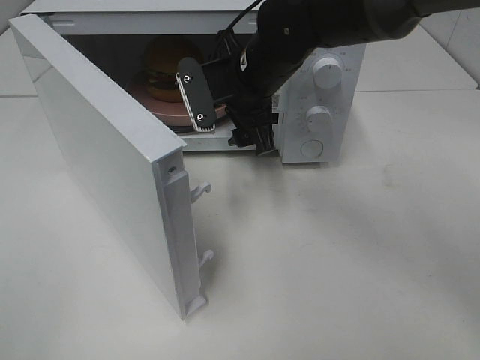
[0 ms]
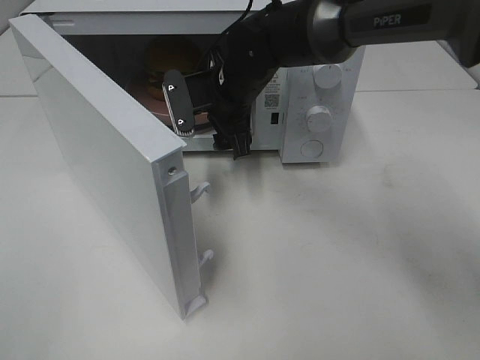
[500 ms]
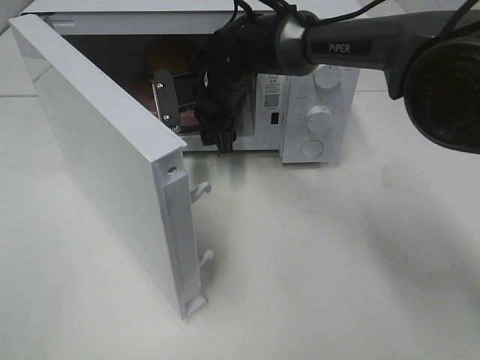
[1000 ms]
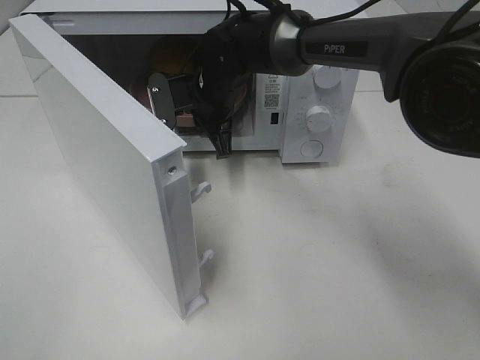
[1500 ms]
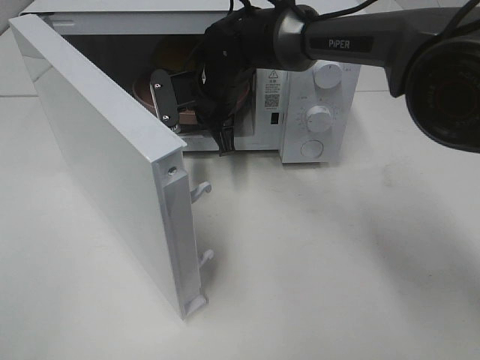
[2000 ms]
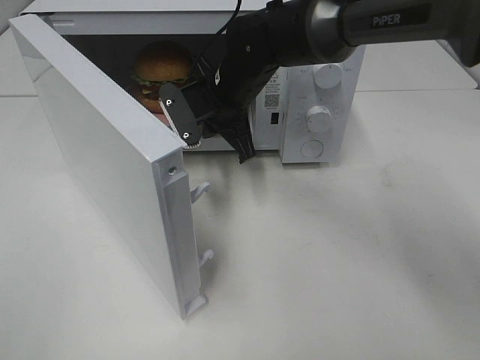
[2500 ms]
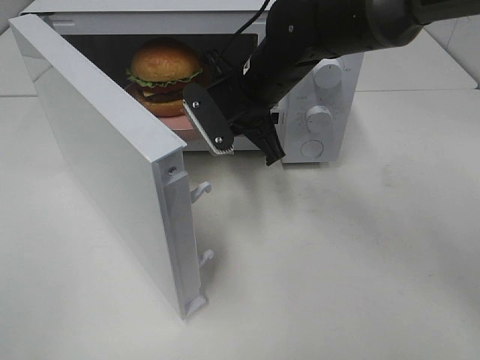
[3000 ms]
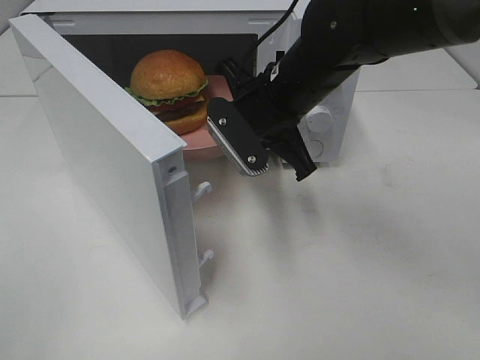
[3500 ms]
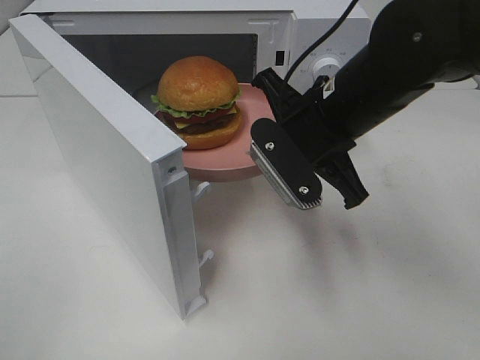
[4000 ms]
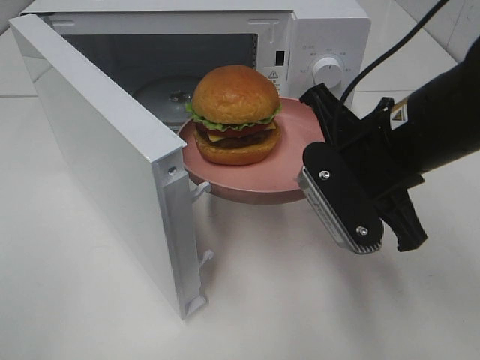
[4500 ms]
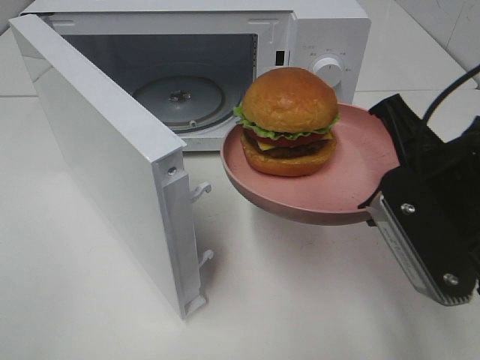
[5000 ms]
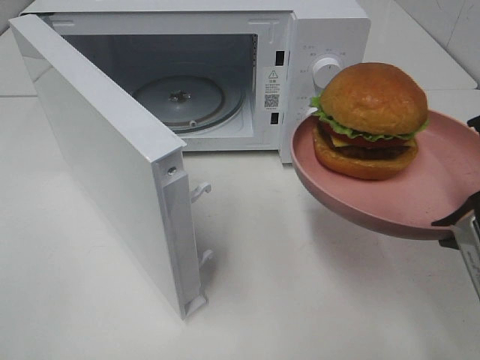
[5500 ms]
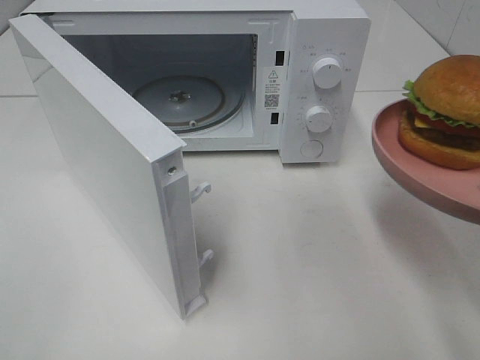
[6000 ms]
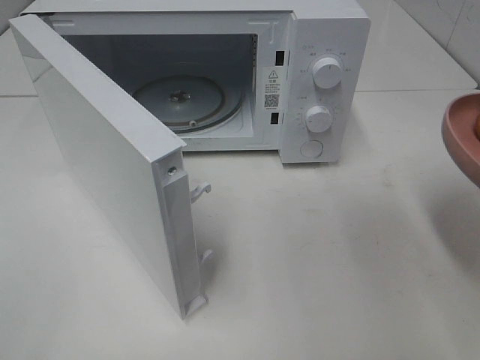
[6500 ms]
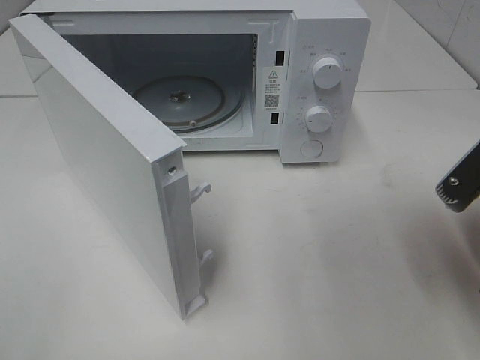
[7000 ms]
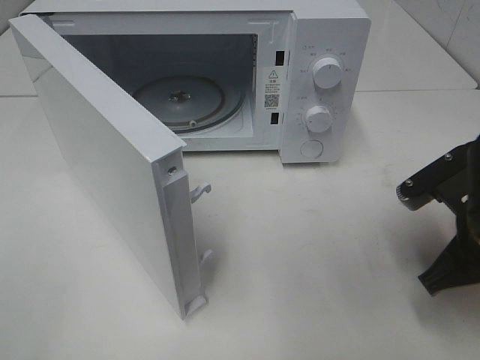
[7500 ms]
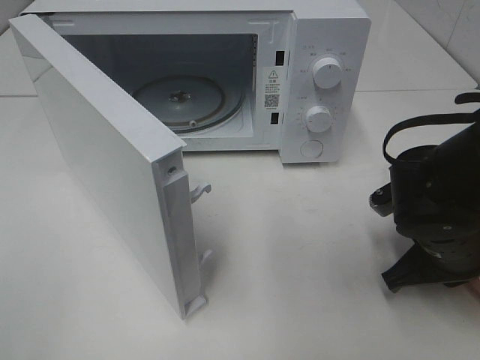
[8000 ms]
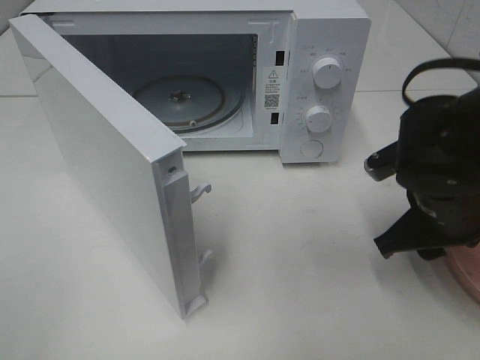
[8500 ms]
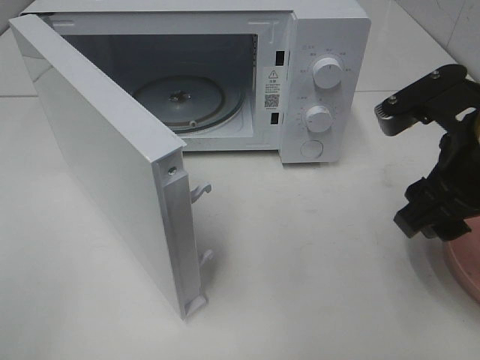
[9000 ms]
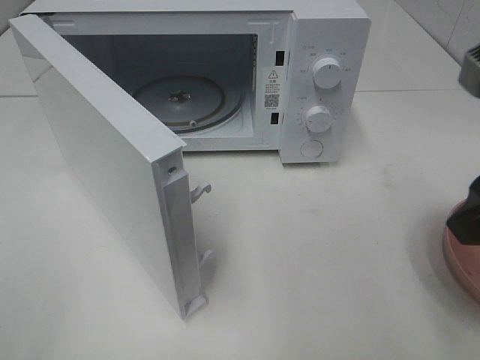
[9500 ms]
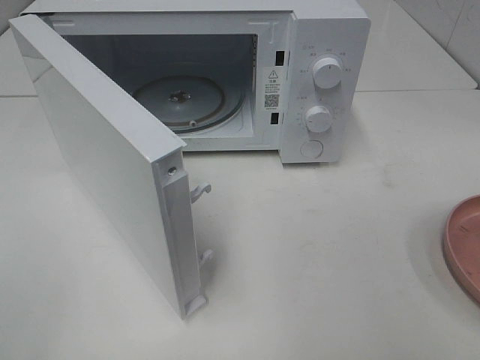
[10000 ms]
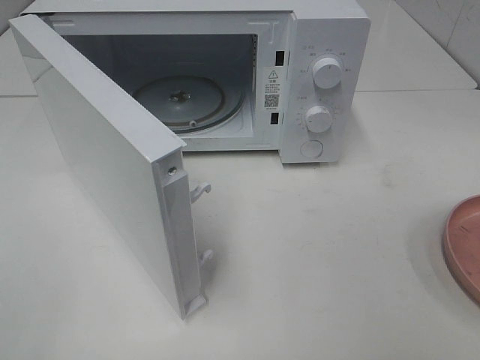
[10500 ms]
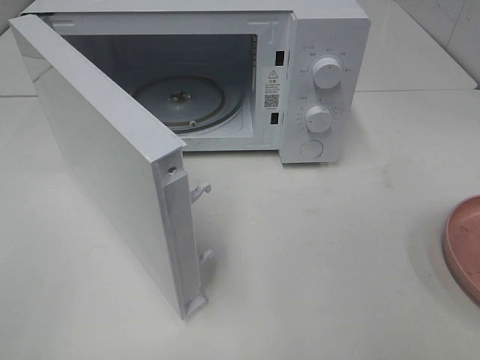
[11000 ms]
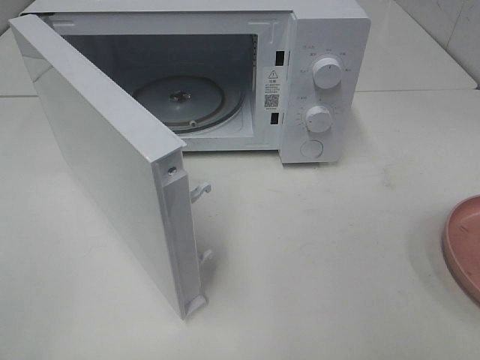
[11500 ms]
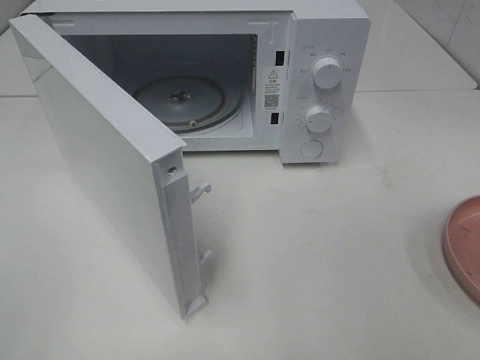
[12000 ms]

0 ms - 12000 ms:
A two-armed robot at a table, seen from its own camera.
Task of the whole recording: Heat the burger.
Step, 1500 ms - 8500 ms: Right hand: place the plate on the table.
0 ms - 2000 ms: The right gripper is displaced forward by about 5 cm, and closes.
2000 ms - 4000 ms: The right gripper moves backward and to the right, about 20 cm.
4000 ms - 6000 ms: The right gripper moves backward and to the right, approximately 20 cm.
6000 ms - 8000 ms: The right gripper moves downward and forward, about 15 cm.
8000 ms - 10000 ms: The right gripper is displaced upward and backward by about 30 cm, and opens up.

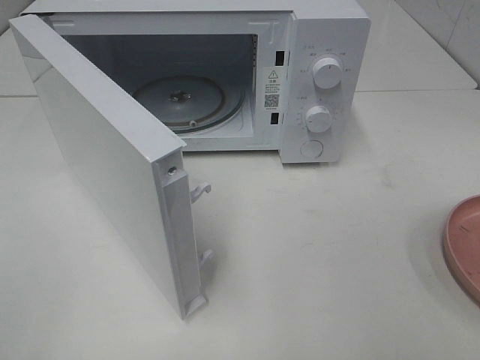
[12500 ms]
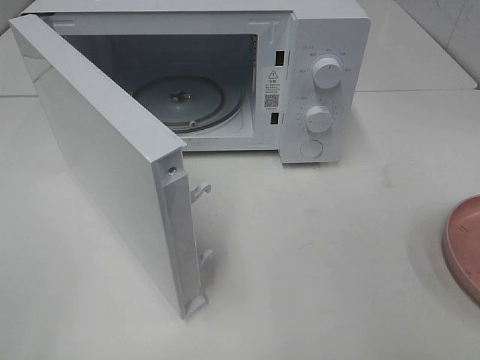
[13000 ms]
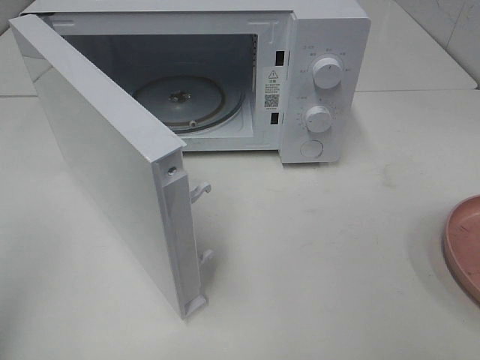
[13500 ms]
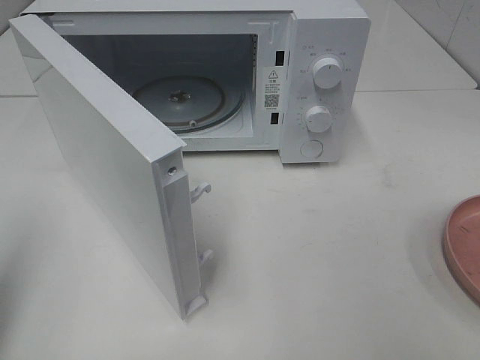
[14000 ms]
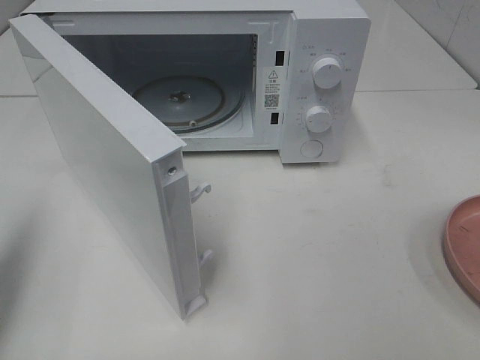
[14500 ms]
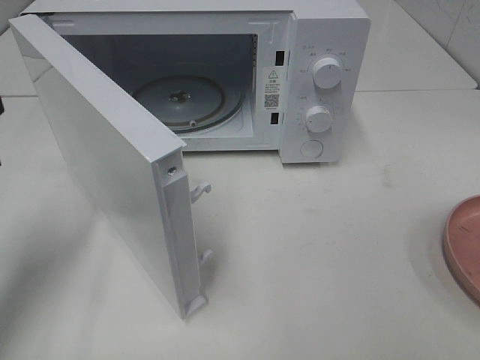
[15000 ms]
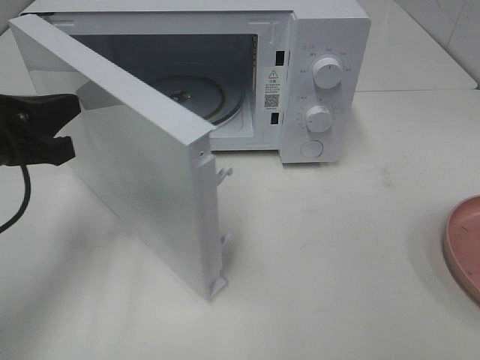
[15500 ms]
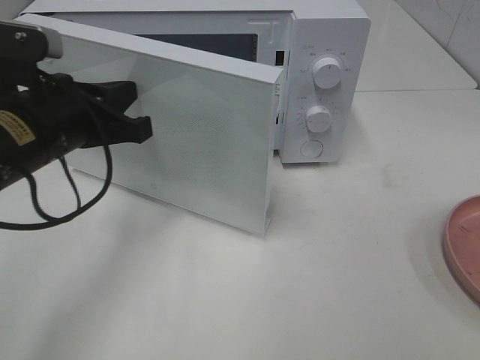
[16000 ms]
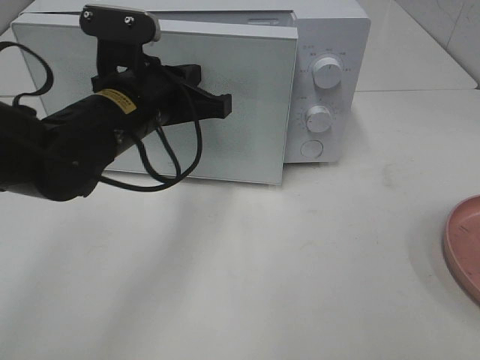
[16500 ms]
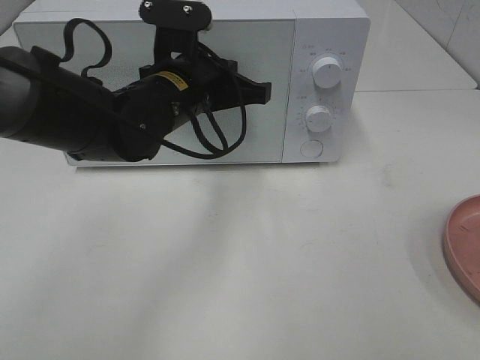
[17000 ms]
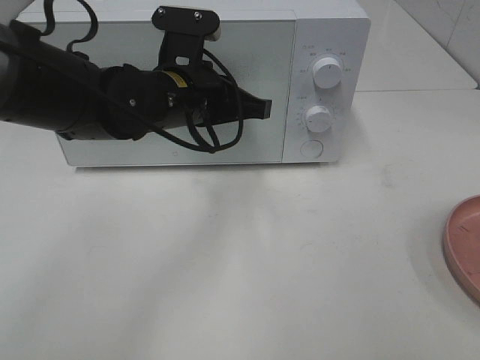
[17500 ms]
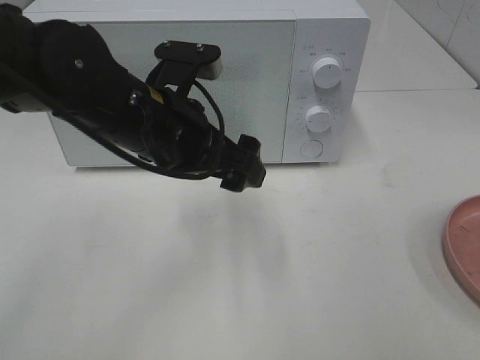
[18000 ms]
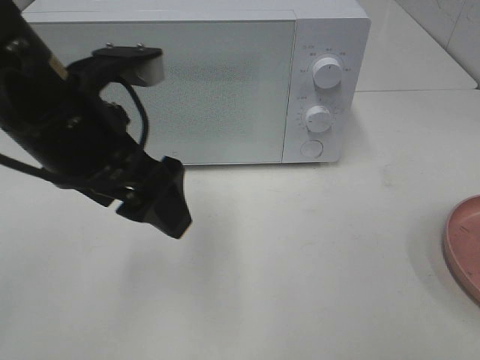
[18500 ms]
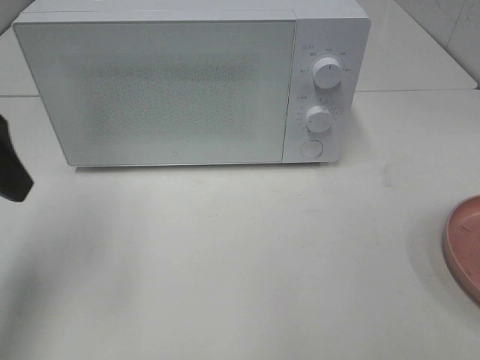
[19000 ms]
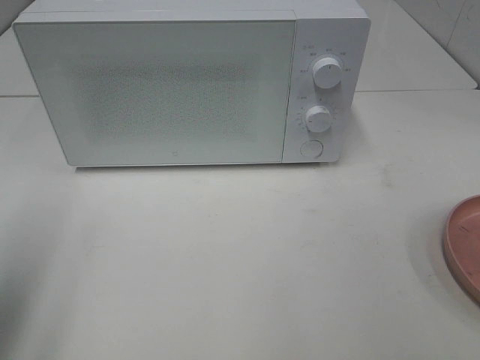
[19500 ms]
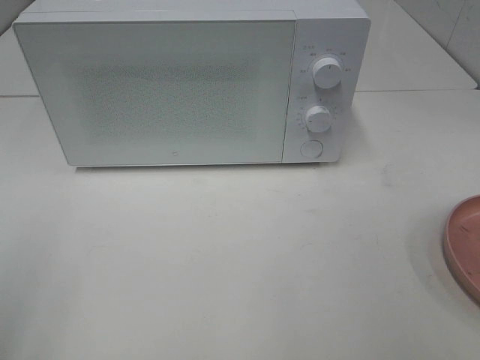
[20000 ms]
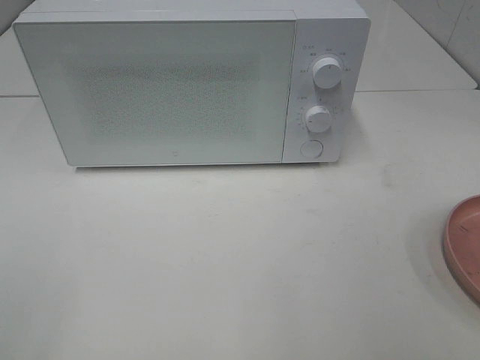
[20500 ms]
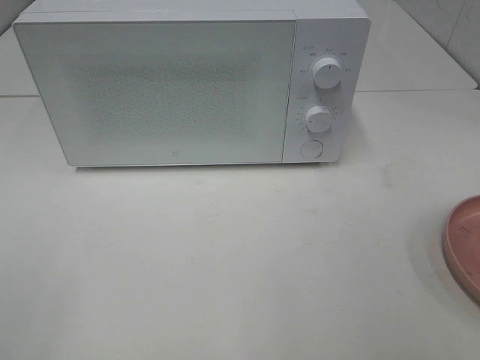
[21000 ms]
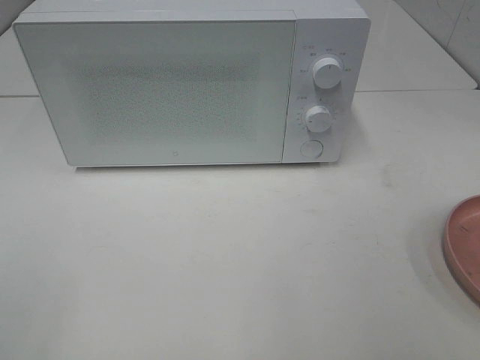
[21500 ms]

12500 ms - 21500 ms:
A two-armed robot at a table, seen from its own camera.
Task of the whole recording: Heat the burger.
Step, 12500 ms - 17500 ms: Left hand: close the microwave door.
12500 ms - 14500 ms: The left gripper moves forward, about 15 cm, and closes its fingers.
14500 ms - 17000 ms: The left gripper shifts roughly 30 cm to the right and forward.
17000 ms - 19500 ms: The left gripper shifts about 35 cm to the left and backward, and opens up.
19500 ms - 21500 ms: The left gripper shifts approximately 15 cm backward.

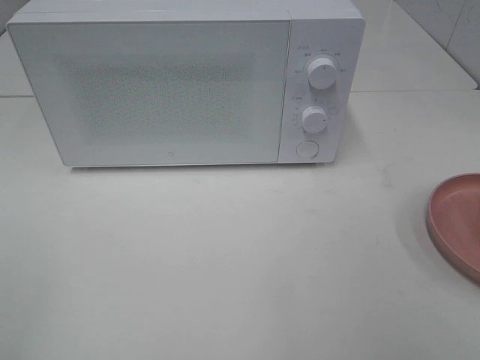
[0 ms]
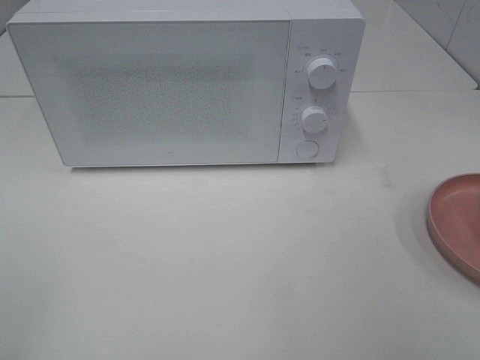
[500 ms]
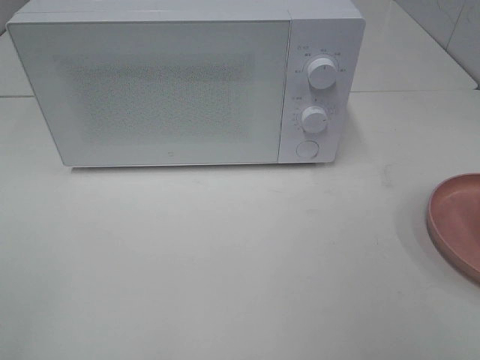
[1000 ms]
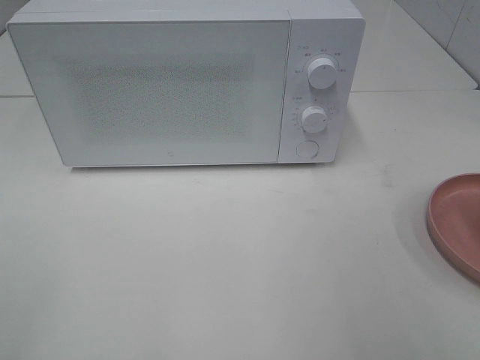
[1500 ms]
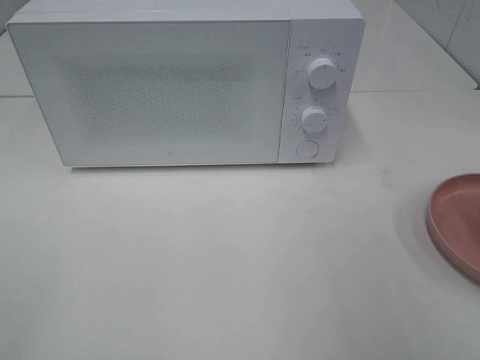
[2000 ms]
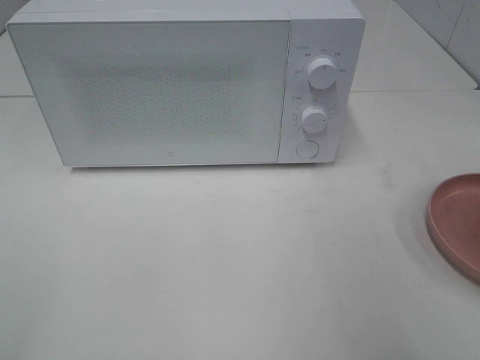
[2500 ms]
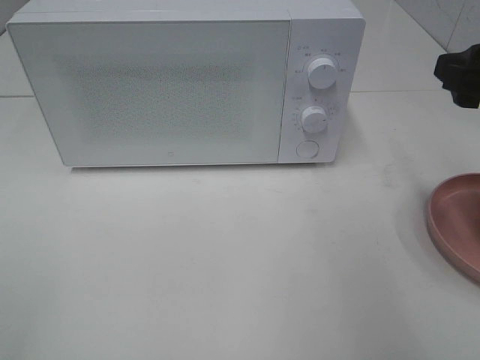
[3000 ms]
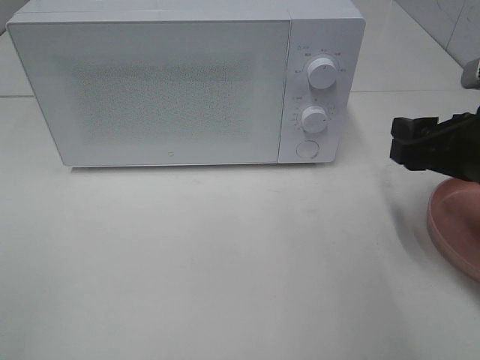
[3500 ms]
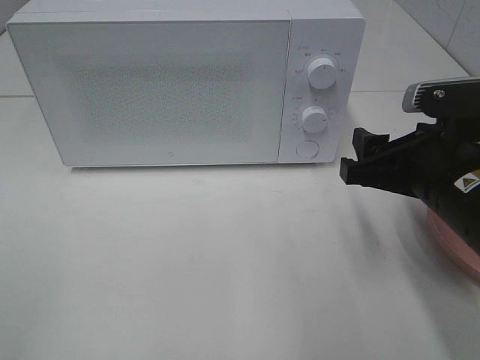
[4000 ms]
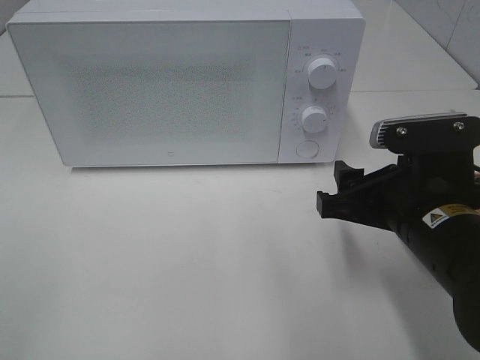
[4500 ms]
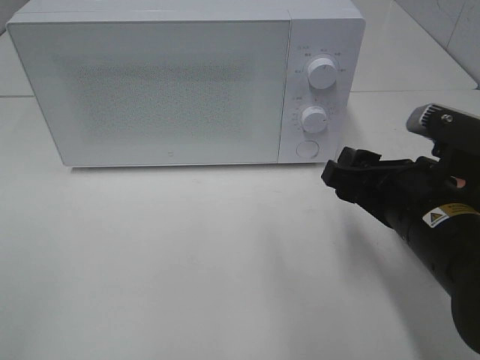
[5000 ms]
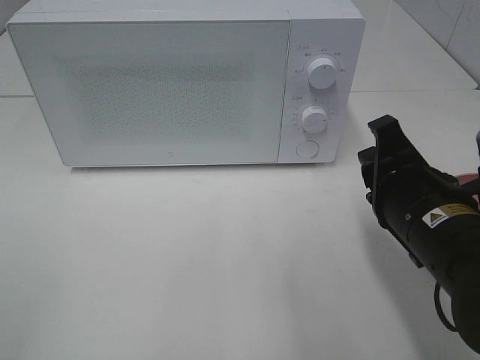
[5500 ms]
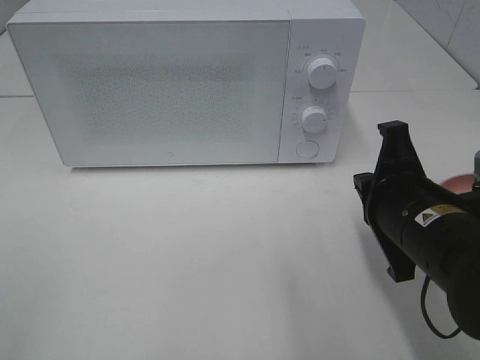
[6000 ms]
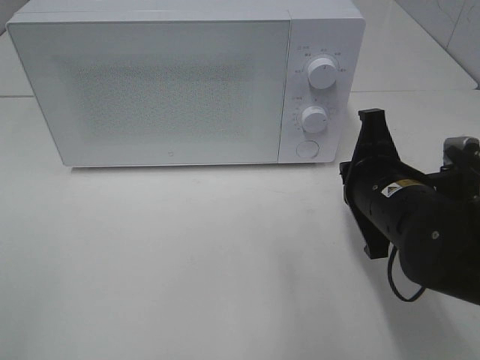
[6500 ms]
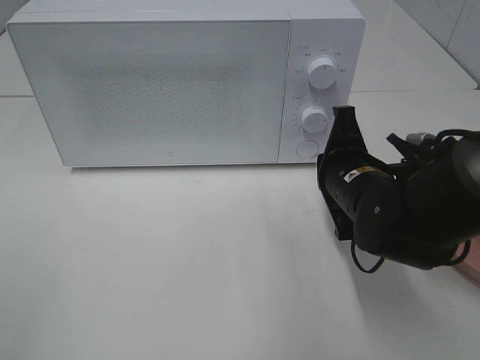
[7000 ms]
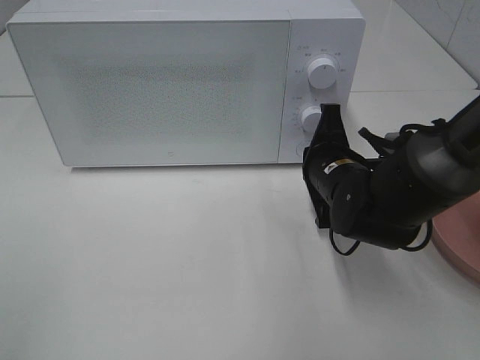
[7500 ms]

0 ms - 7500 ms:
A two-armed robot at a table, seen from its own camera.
Task of the whole recording: Heat the burger.
2000 ms - 4000 ms: The right gripper is displaced downward, forward and to the left by about 20 cm.
4000 ms - 5500 ms: The right gripper closes.
5500 ms - 7500 ms: The right gripper is displaced forward and downward by roughly 15 cm, and closes.
